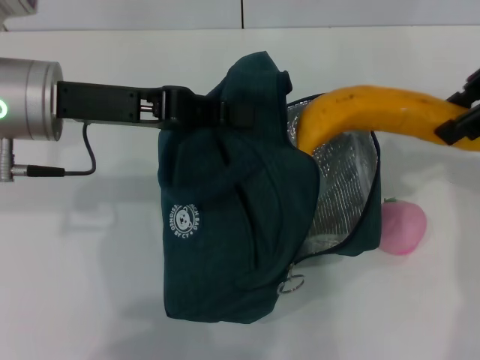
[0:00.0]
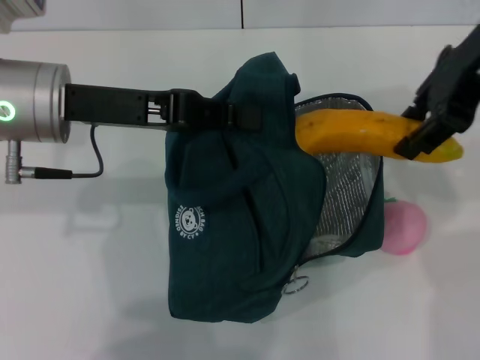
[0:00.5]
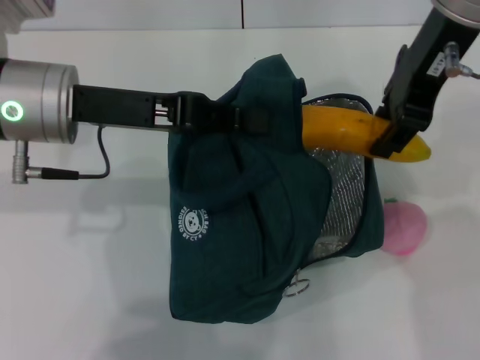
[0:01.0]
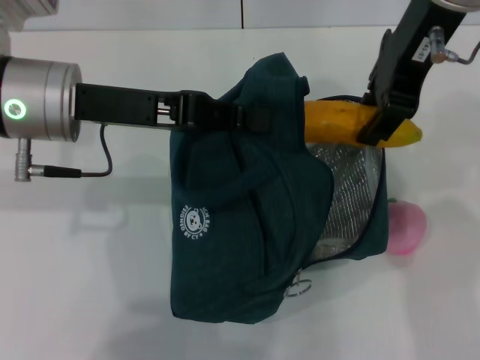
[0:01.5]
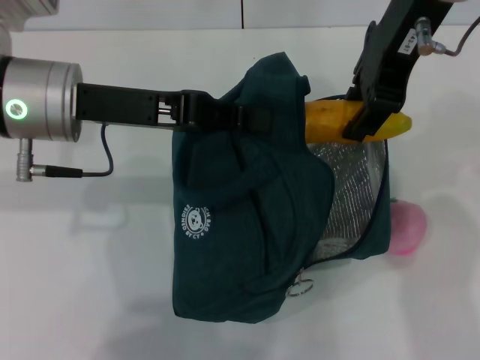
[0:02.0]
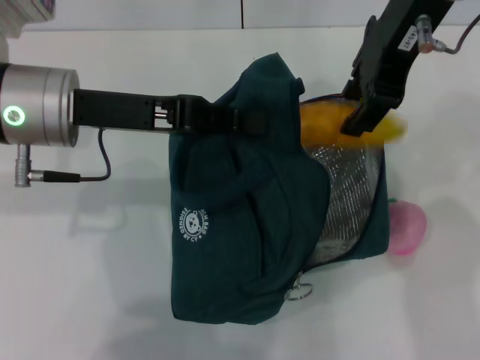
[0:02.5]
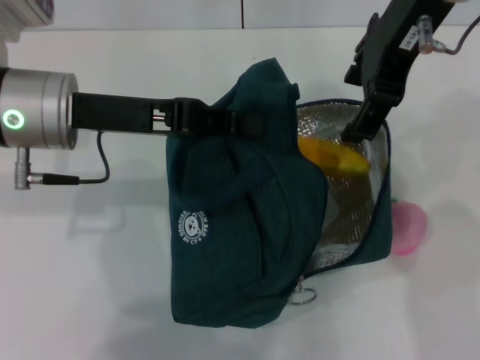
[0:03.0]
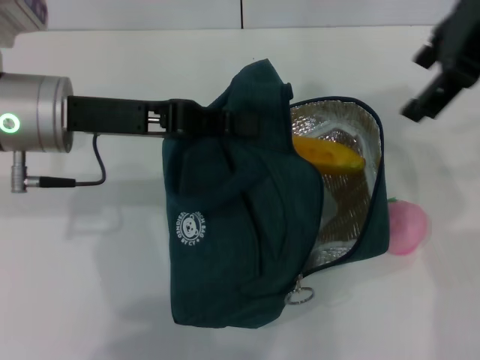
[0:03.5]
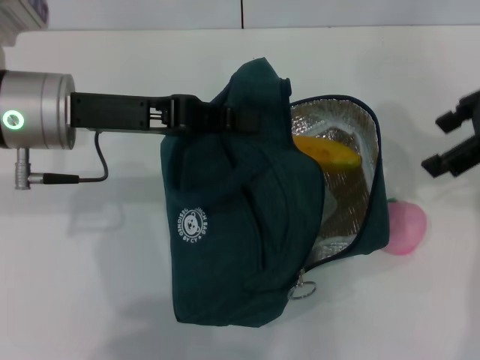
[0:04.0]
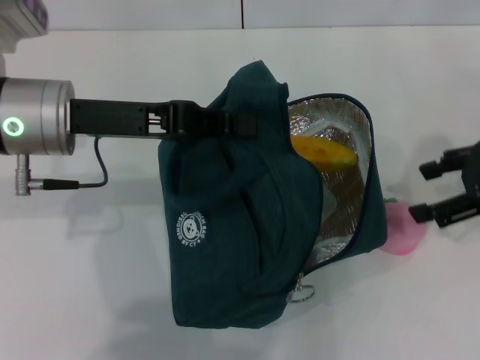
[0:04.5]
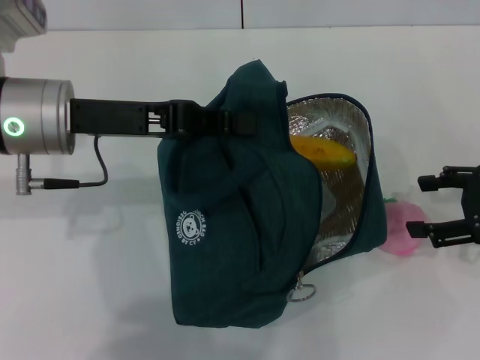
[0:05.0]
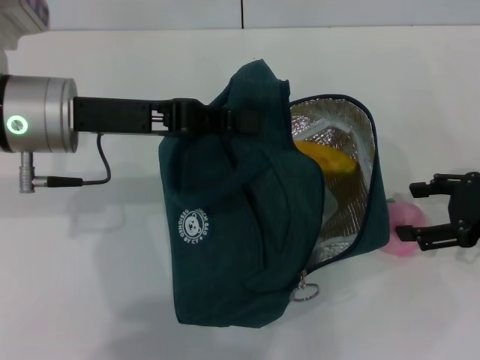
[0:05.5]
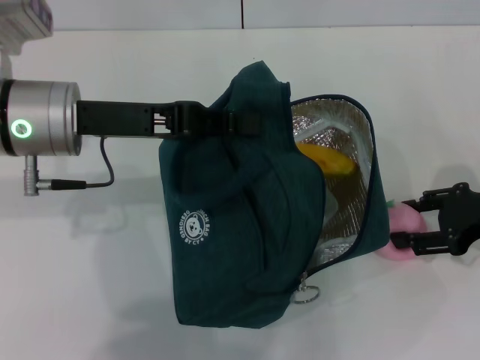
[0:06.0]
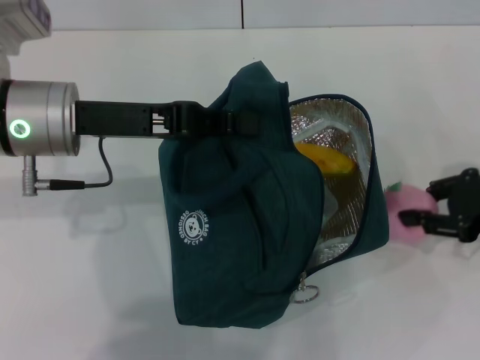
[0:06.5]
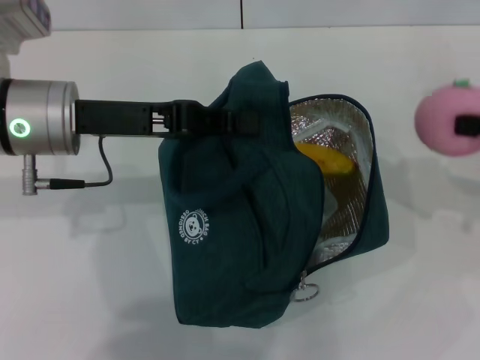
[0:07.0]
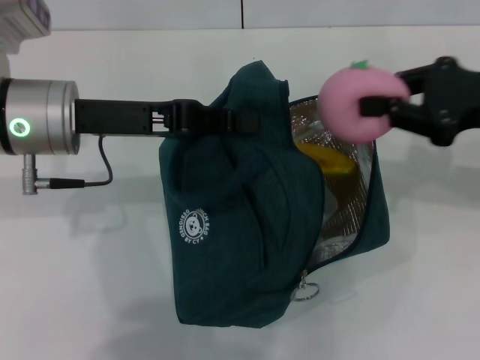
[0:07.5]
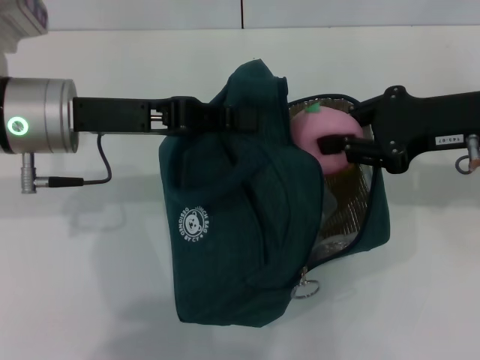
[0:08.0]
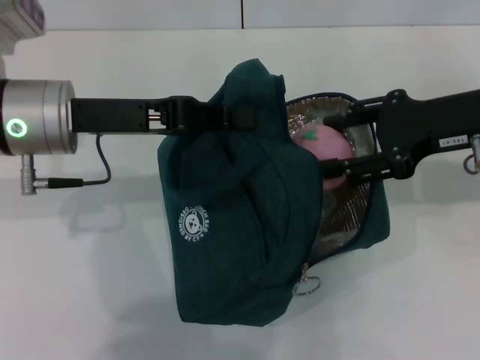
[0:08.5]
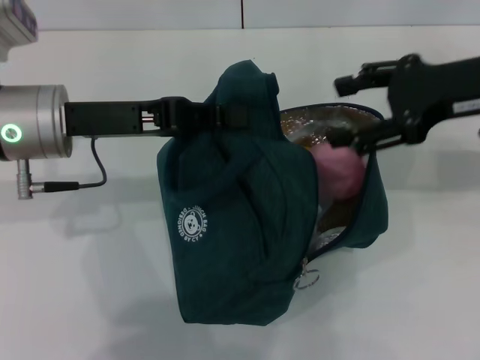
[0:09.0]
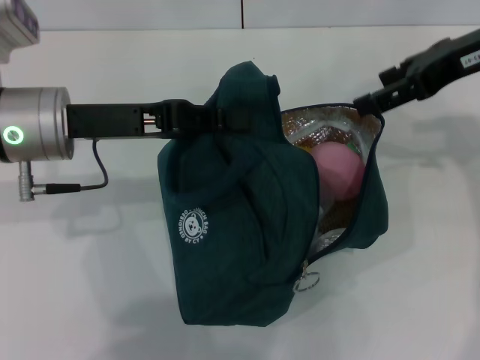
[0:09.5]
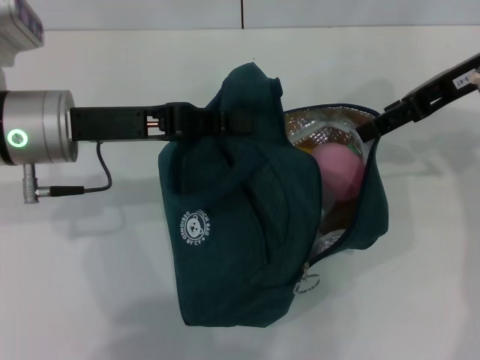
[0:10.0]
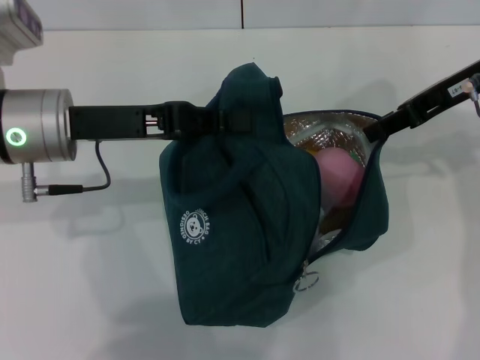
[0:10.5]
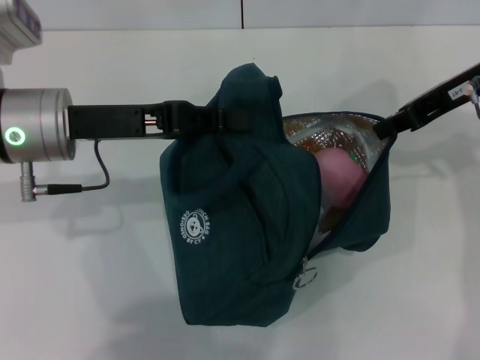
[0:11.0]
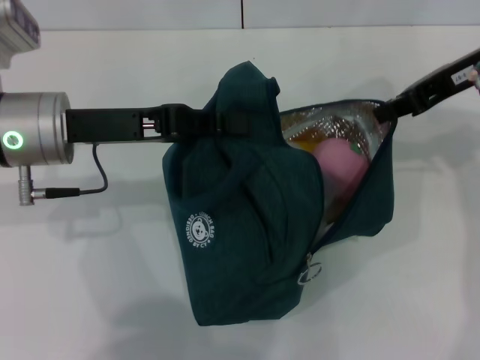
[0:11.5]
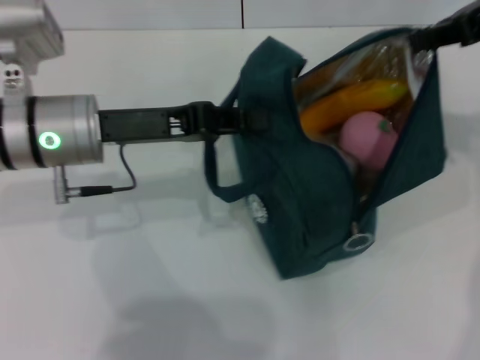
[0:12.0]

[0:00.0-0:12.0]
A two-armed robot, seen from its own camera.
Step, 0:00.0 to 0:03.0: Put the banana into the lunch bag with your right hand.
Step, 0:03.5 to 0:06.0: Grab the peach with your right hand.
0:00.0 to 0:02.0: The right gripper heads to the left, covering some 15 cm.
0:02.0 to 0:04.0: The right gripper moves to the right and downward, some 20 cm, and opens its fingers.
0:04.0 to 0:06.0: The right gripper travels downward by approximately 15 cm.
0:06.0 to 0:08.0: The right gripper travels upward and to the left by approximately 10 cm, and closes.
0:08.0 to 0:10.0: The right gripper is displaced upward by about 5 cm, and opens.
0:10.0 to 0:12.0: The right gripper shifts roughly 5 cm upward, and closes.

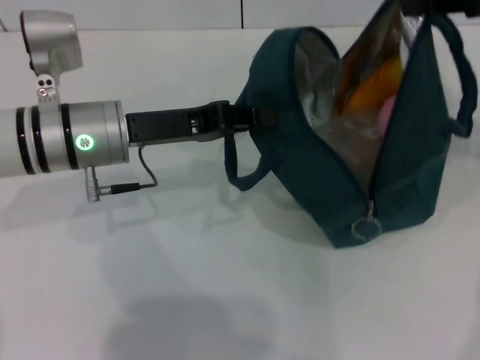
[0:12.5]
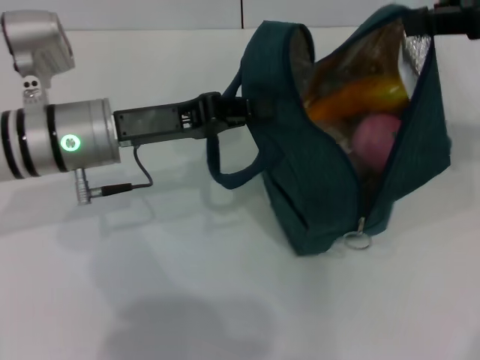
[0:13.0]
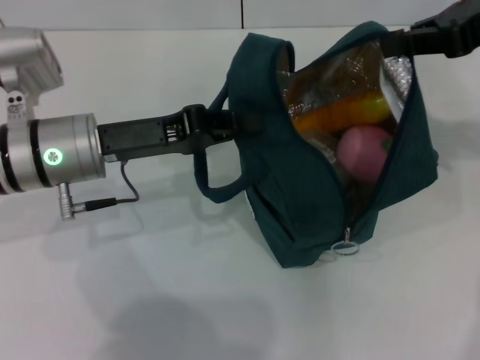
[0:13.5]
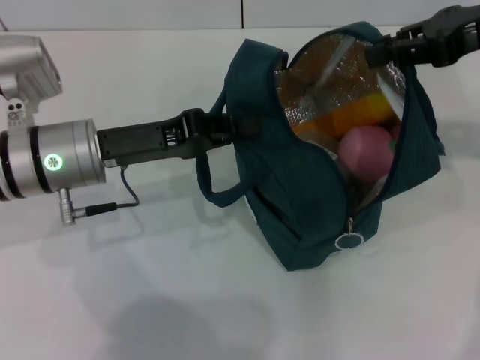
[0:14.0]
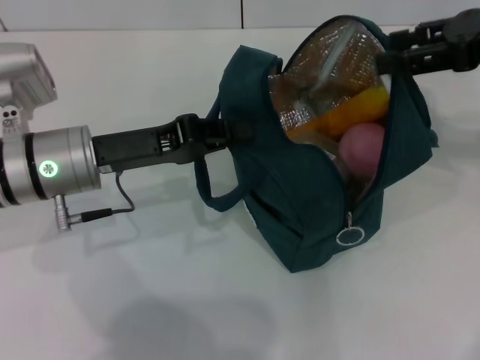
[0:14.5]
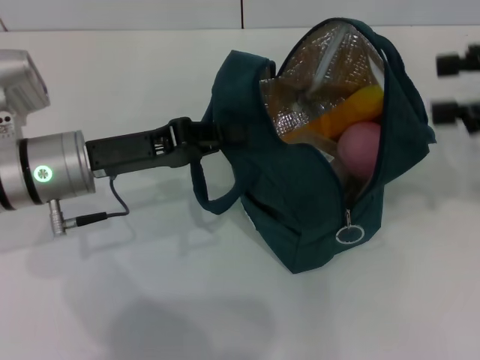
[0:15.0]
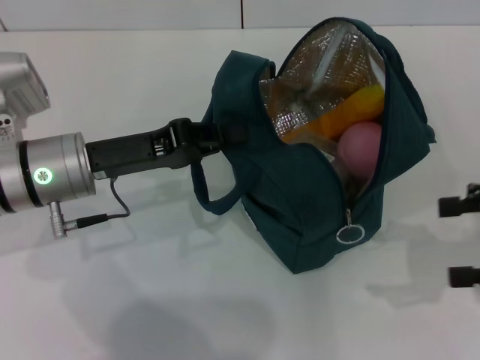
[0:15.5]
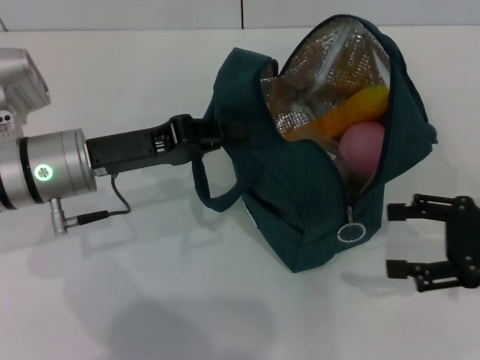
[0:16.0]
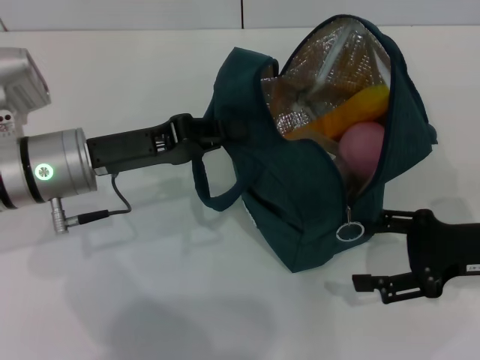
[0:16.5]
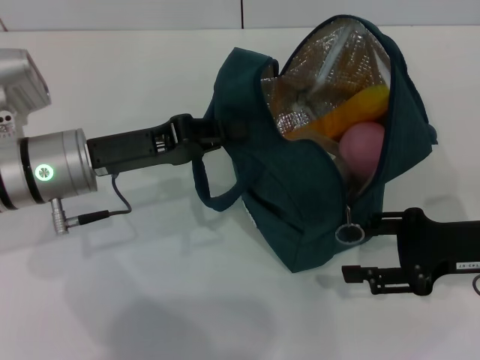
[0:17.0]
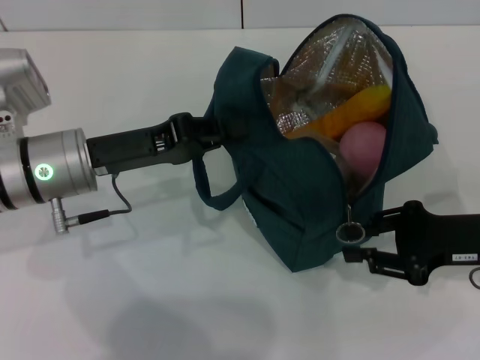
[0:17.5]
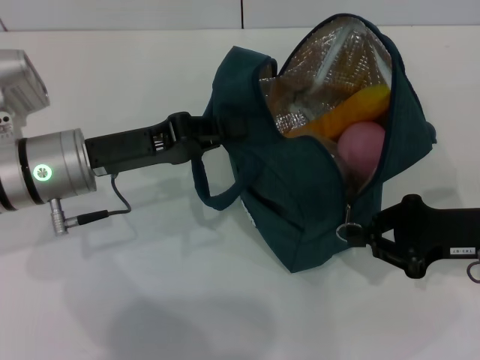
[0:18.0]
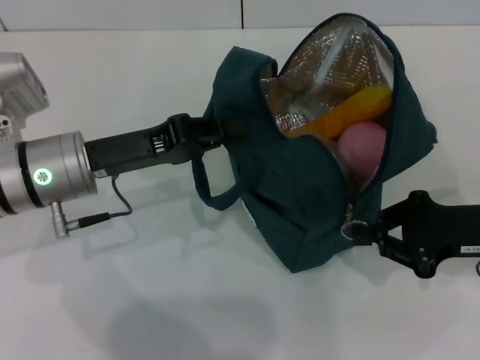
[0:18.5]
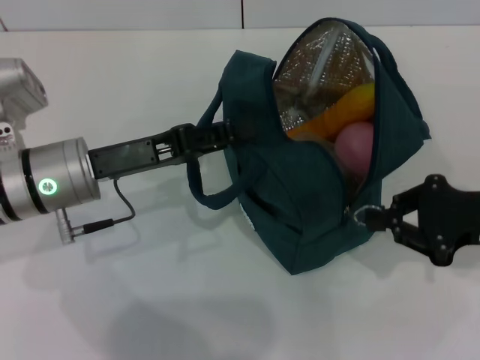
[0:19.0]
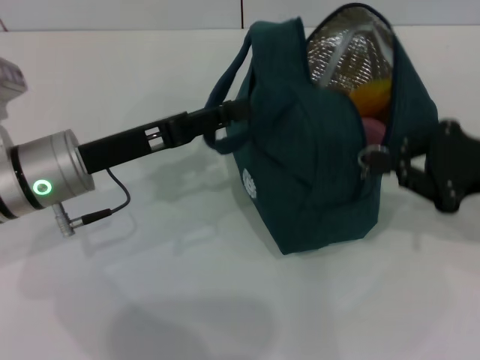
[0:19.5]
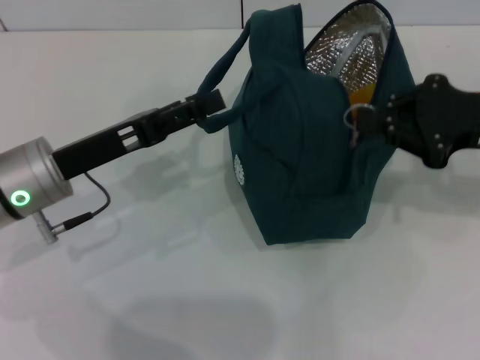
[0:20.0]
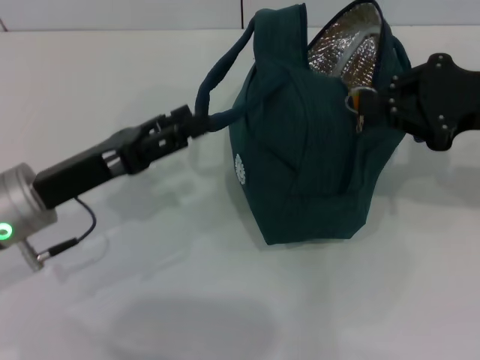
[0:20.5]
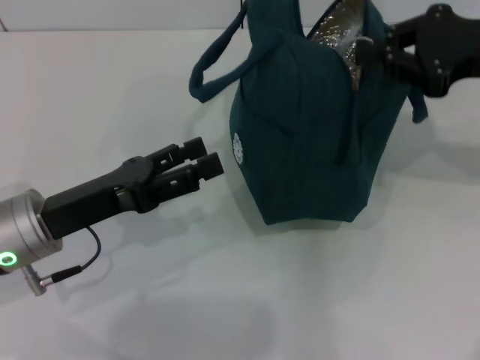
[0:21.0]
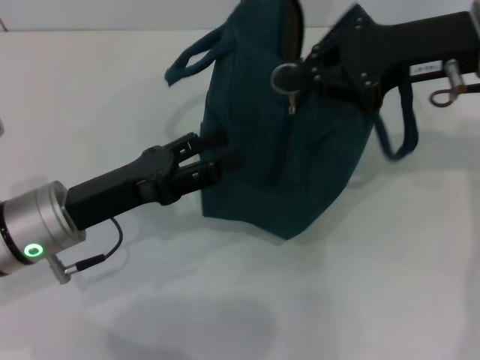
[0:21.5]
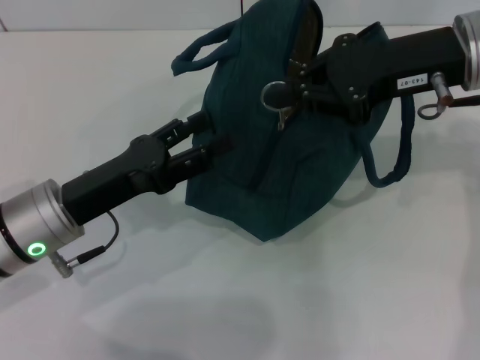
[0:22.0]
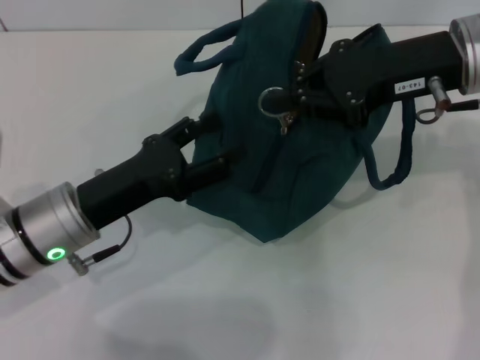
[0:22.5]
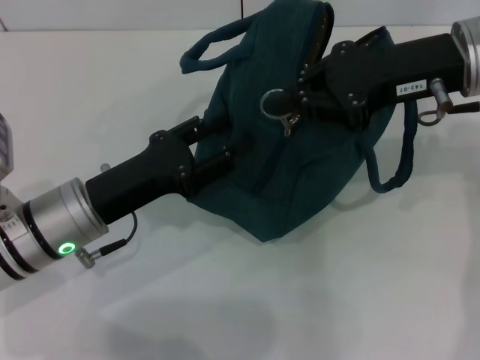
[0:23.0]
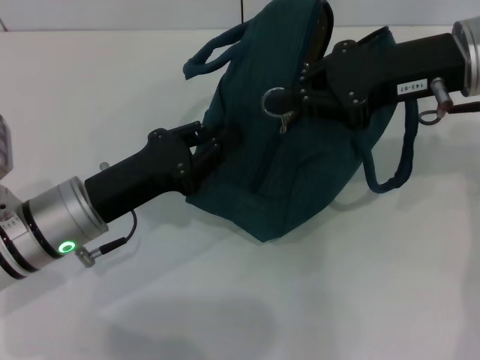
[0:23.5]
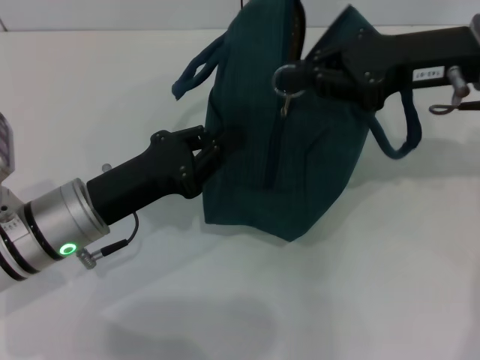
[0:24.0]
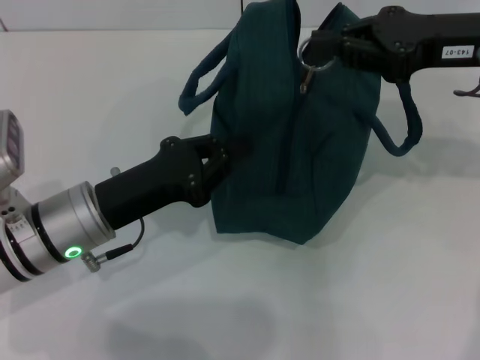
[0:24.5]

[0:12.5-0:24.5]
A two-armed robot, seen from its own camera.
Step, 0:12.5 to 0:14.5: Hold the lunch bag with your right hand.
0:12.5 to 0:14.5: The right gripper is displaced downward by about 5 cm, and opens its fingers.
0:14.5 to 0:16.5: The right gripper heads downward and backward, covering roughly 20 cm, and opens.
0:16.5 to 0:18.5: The right gripper closes.
0:18.5 to 0:20.5: The left gripper changes place by some 5 cm, and opens up; the right gripper goes some 10 cm upward.
0:20.5 to 0:22.5: The right gripper heads to the left, covering some 10 cm.
0:22.5 to 0:24.5: The left gripper closes its fingers.

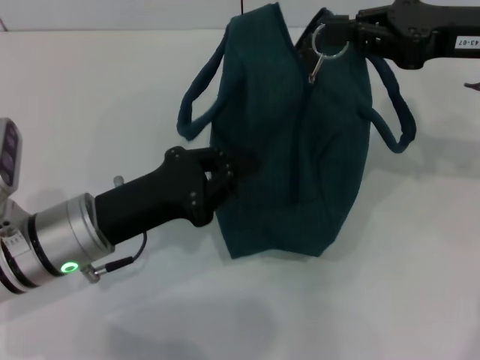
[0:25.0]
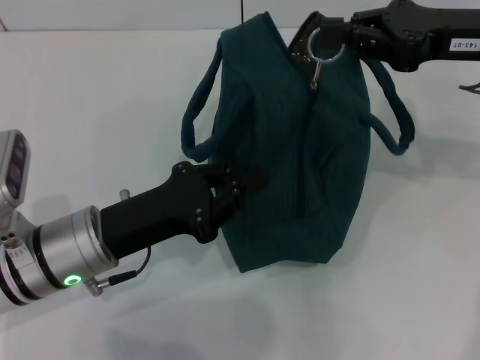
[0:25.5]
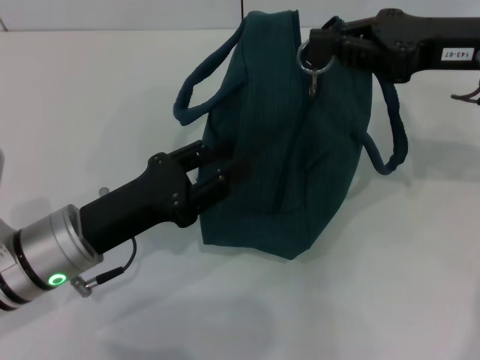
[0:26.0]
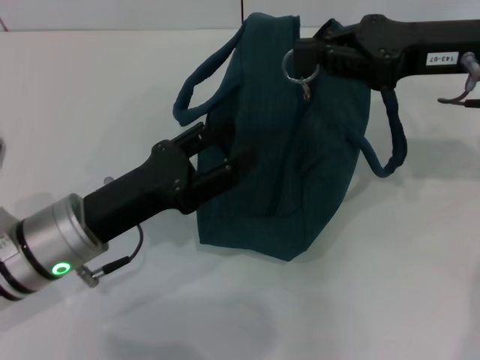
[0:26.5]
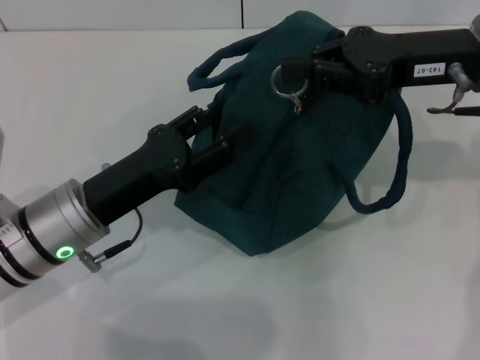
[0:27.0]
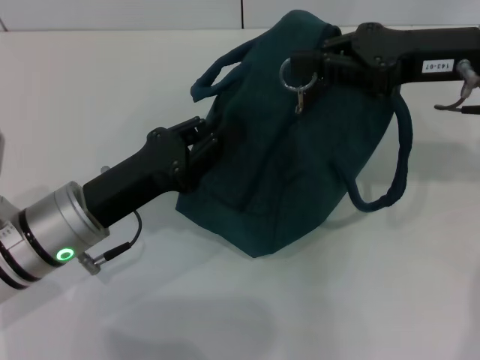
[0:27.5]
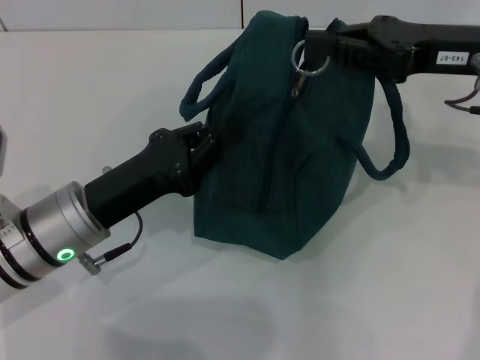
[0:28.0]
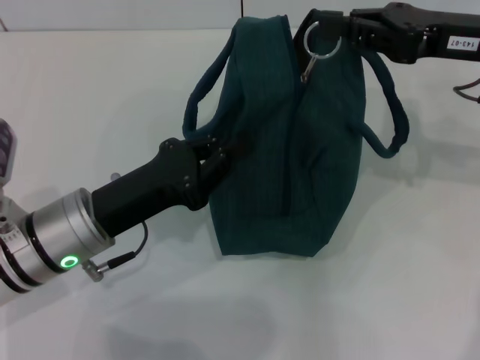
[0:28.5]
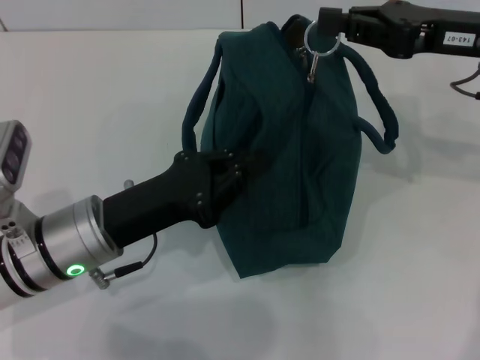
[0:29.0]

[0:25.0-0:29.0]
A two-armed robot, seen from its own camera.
0:25.0 to 0:27.0: The left gripper opens up.
0:27.0 to 0:29.0: The left gripper closes its fingers.
